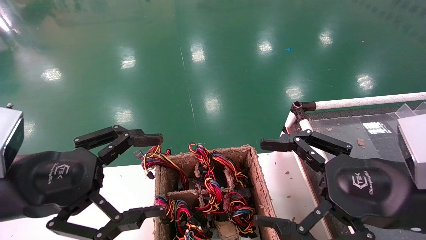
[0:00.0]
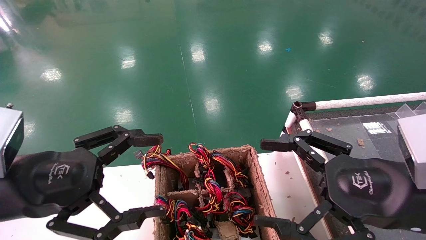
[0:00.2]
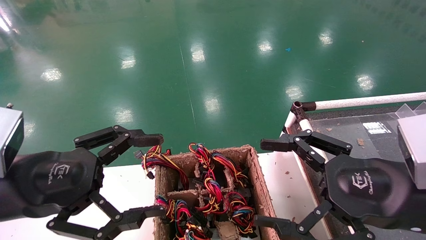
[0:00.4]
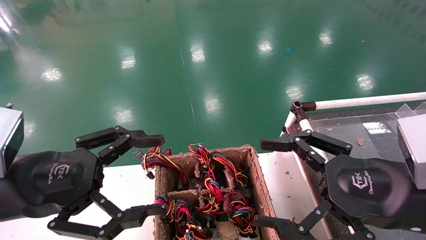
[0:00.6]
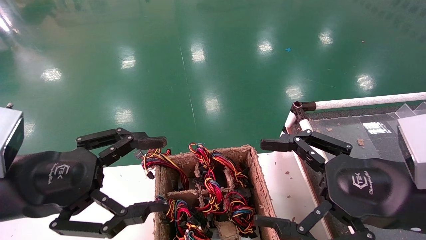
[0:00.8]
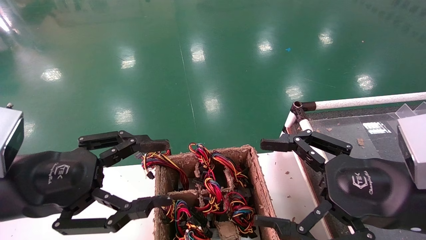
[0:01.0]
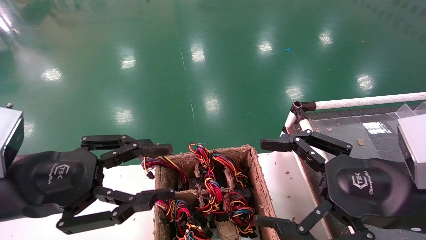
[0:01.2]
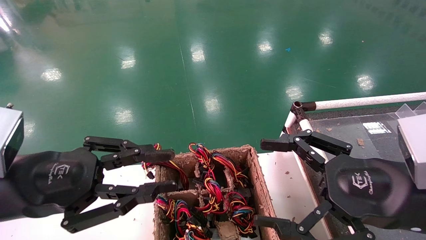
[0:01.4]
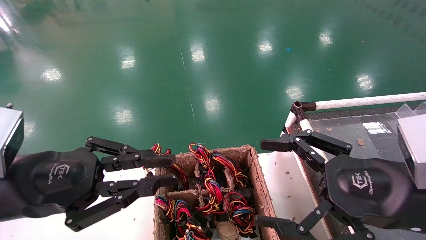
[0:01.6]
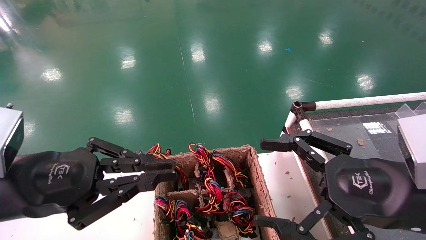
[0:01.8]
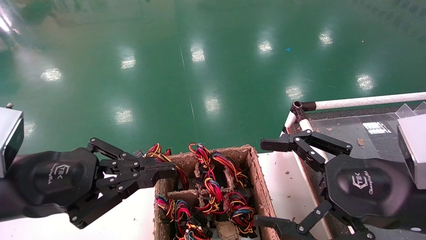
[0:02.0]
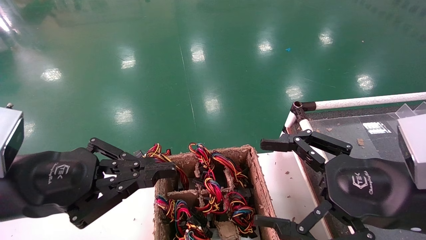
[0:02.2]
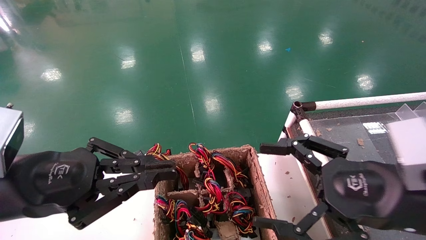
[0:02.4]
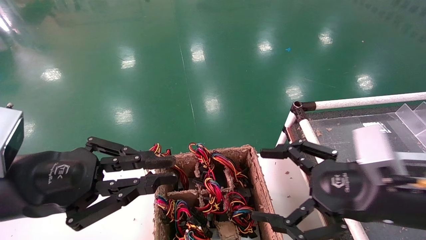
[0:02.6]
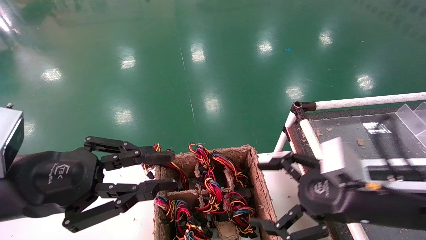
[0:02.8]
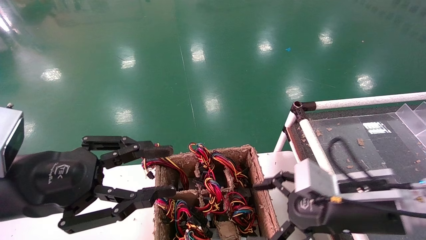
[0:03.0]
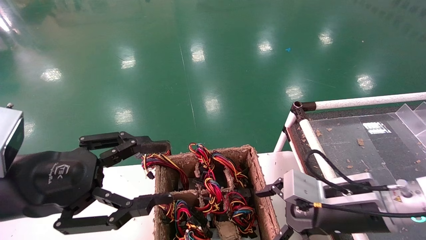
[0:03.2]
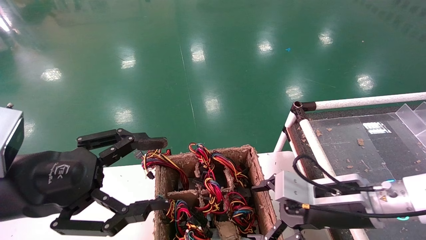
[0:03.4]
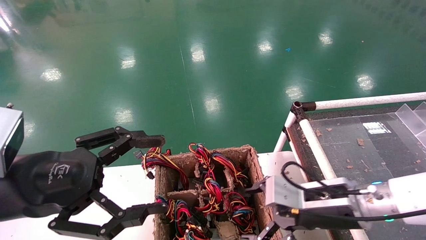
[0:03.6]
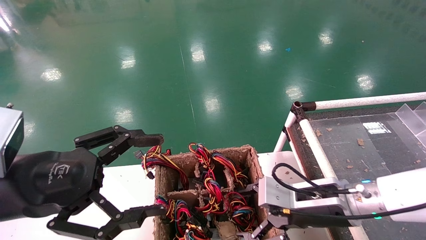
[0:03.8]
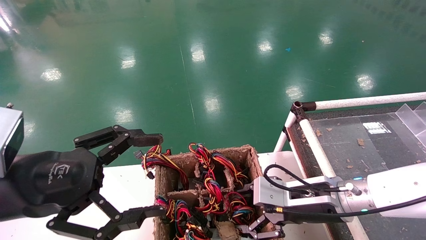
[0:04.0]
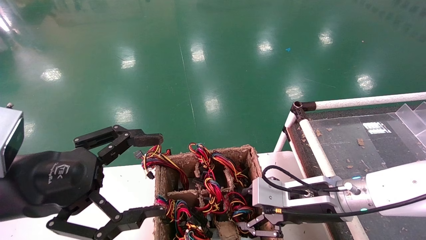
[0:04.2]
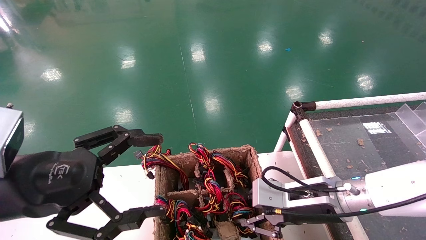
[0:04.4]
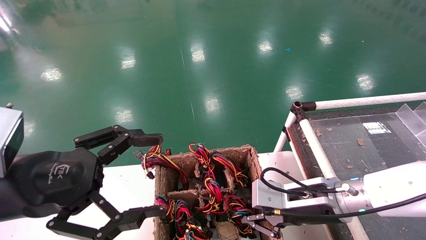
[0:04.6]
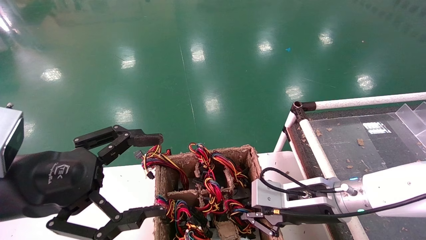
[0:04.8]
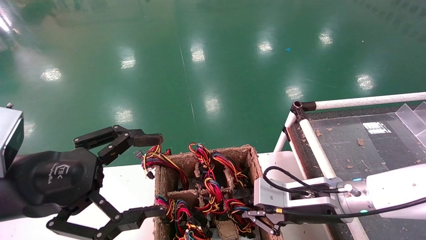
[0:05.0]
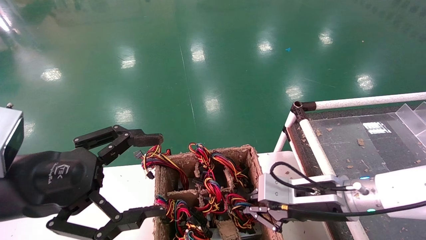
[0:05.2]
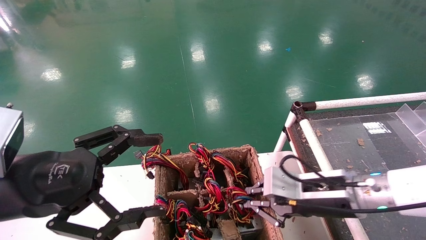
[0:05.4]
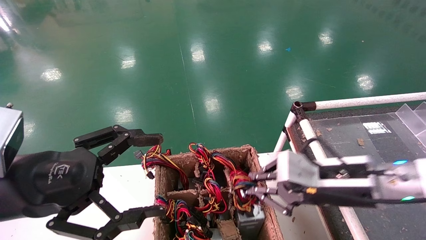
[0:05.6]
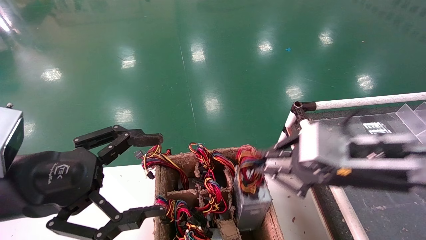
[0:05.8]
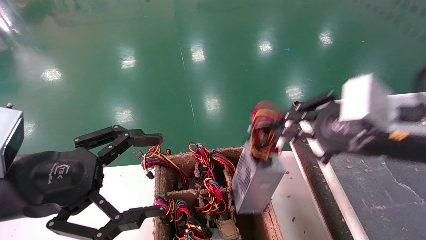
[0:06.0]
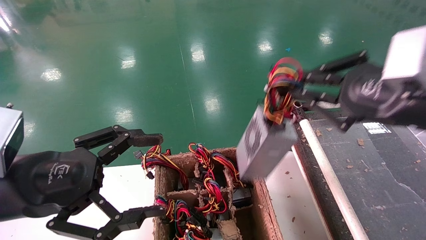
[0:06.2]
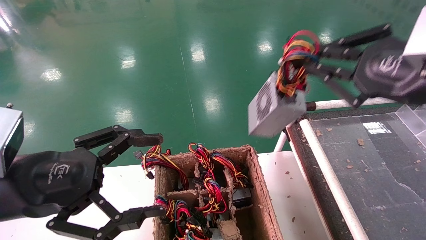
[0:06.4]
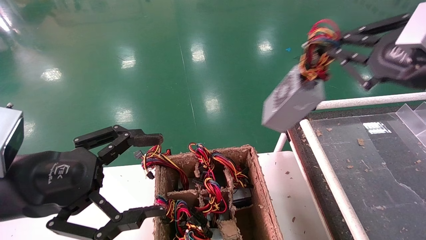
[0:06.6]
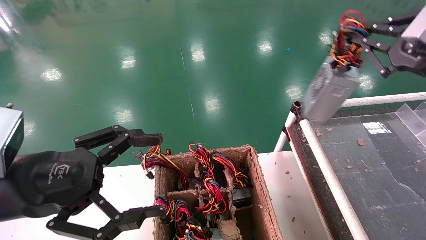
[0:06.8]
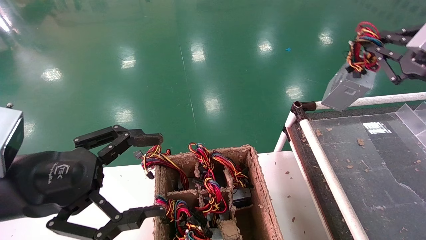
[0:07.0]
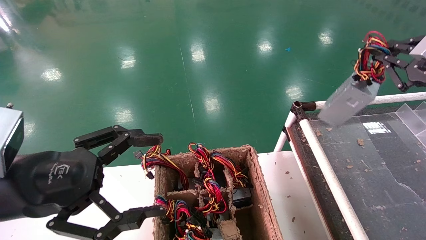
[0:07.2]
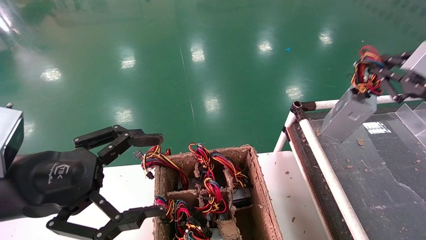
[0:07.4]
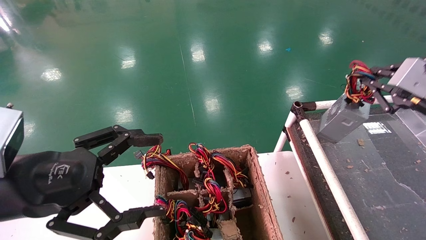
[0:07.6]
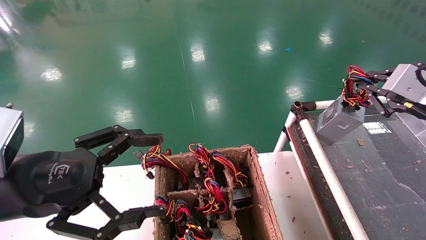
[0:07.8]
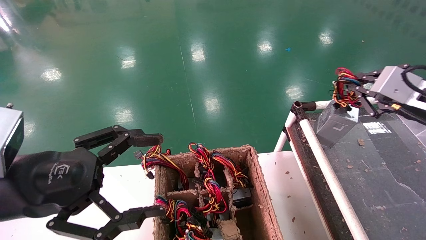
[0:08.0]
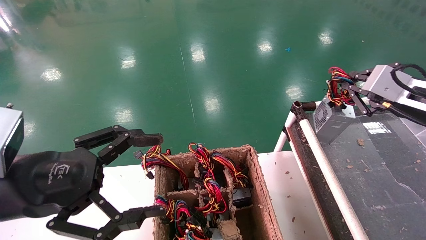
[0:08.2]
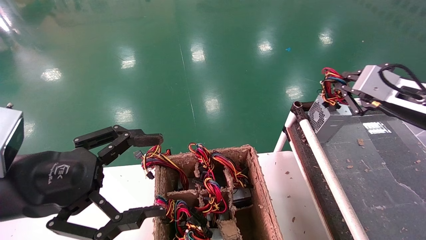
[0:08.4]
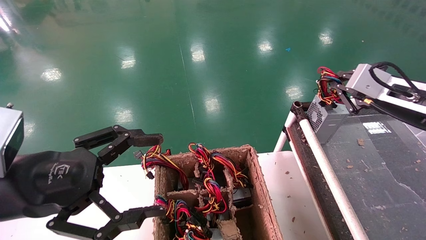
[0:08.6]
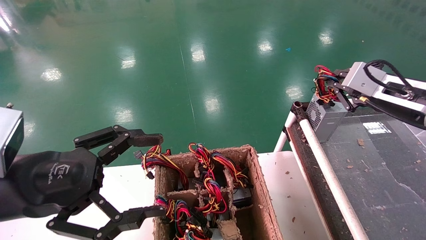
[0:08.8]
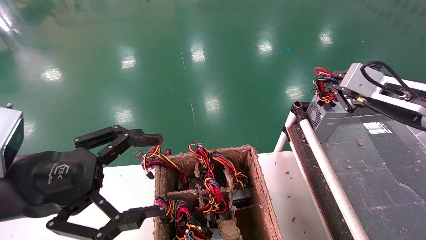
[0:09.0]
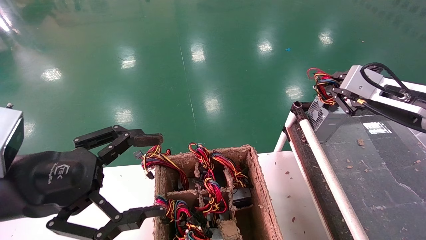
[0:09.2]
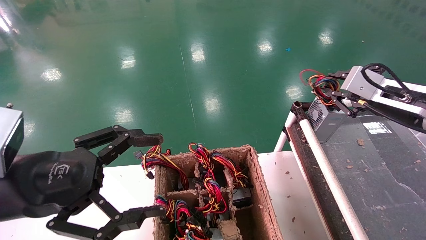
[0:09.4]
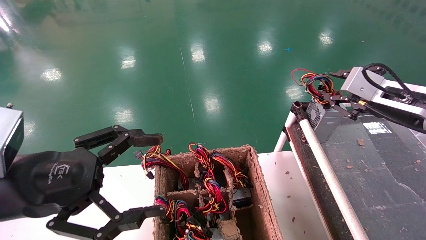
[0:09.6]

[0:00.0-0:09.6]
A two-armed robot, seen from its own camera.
Step, 0:02.2 to 0:06.2: Grab and lift the power supply from the large box.
0:00.0 to 0:01.6: The left gripper closes up.
0:01.6 to 0:03.2: The right gripper heads forward and downward, covering about 10 cm.
0:03.2 to 0:04.8: The left gripper opens. Meanwhile the right gripper shifts by about 5 cm, and closes its fingers.
0:04.8 to 0:06.4: The right gripper moves upward and to the right, roughly 25 cm.
0:06.4 to 0:08.0: The right gripper travels forward, to the right and downward by roughly 10 cm.
0:08.0 to 0:09.6: The grippers move only a little.

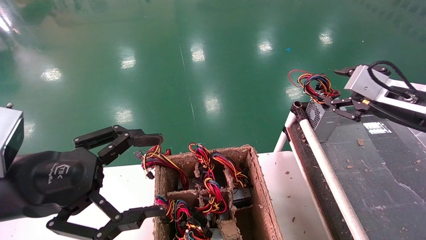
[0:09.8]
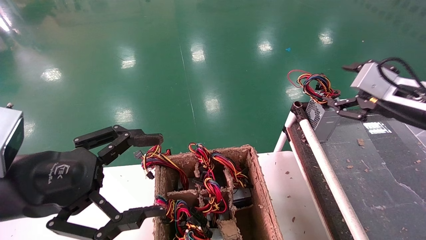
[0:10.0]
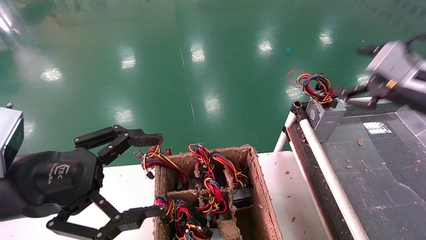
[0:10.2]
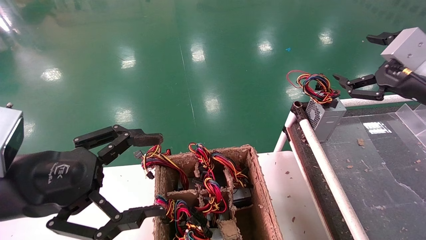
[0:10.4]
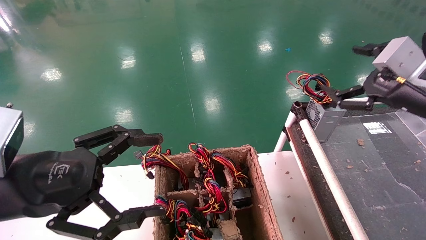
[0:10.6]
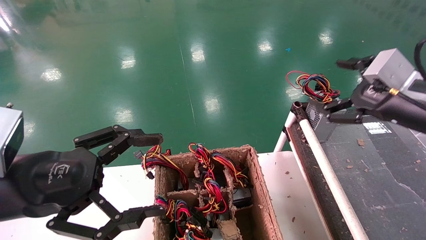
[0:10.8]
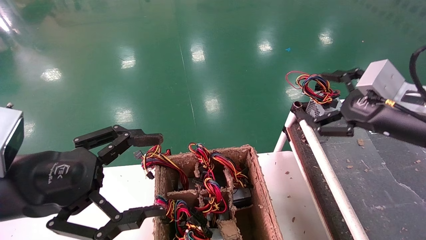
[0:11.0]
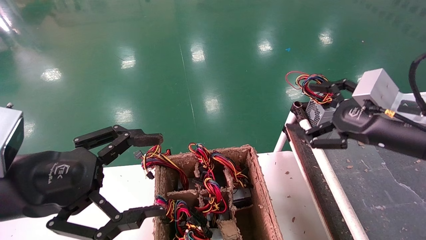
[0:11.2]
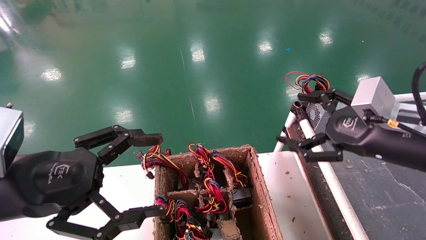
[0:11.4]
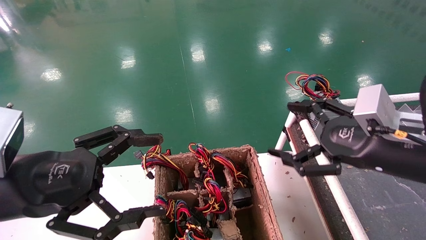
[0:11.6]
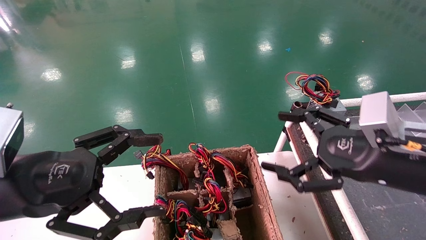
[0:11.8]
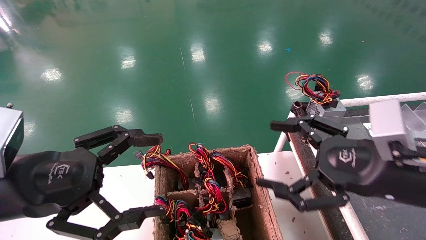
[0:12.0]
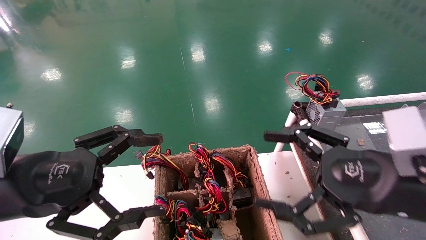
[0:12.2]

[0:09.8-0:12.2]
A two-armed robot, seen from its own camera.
0:09.8 to 0:11.0: The right gripper shifts by roughly 5 cm, and opens up.
0:11.0 to 0:12.2: The right gripper is displaced backward and to the left by about 10 cm.
